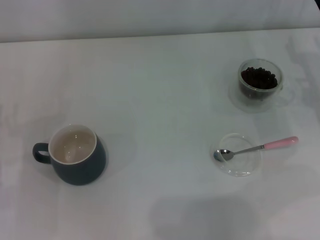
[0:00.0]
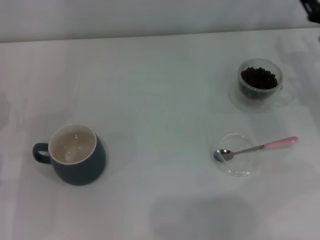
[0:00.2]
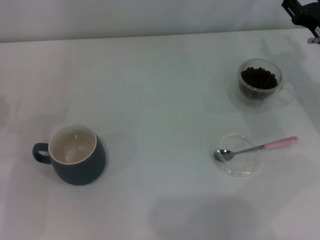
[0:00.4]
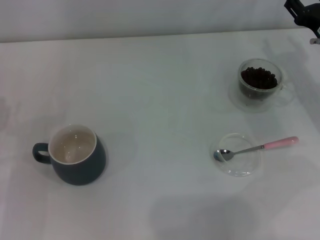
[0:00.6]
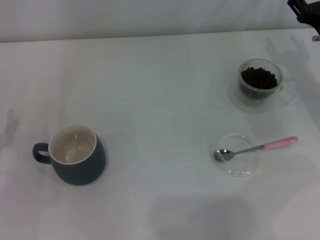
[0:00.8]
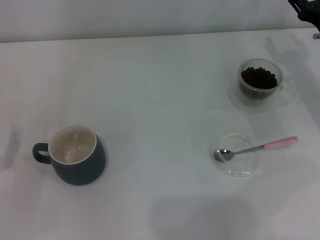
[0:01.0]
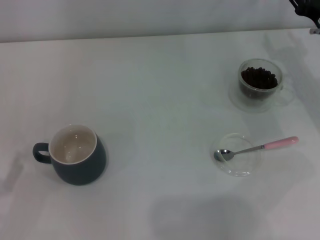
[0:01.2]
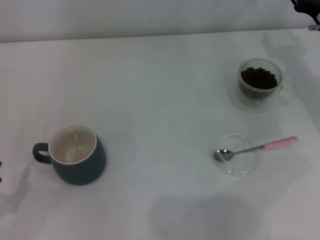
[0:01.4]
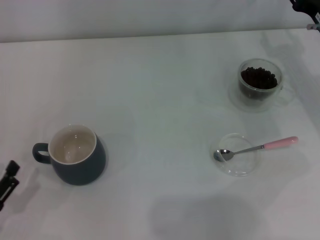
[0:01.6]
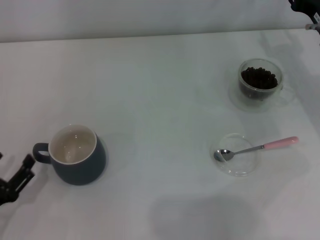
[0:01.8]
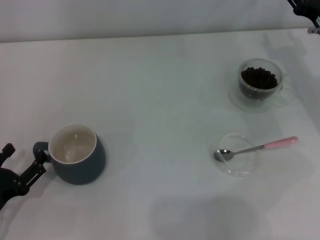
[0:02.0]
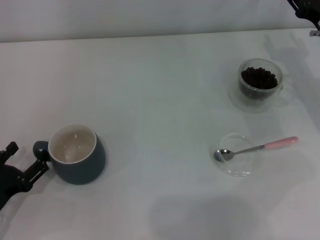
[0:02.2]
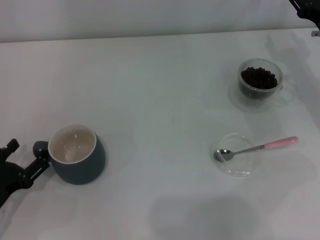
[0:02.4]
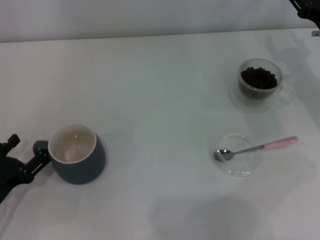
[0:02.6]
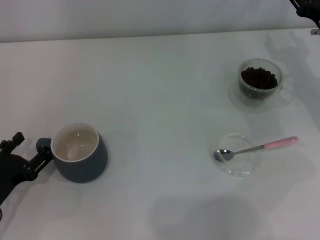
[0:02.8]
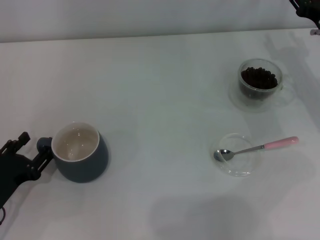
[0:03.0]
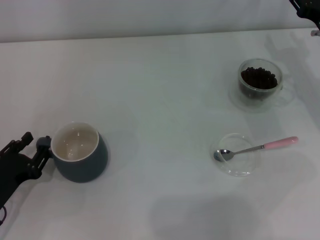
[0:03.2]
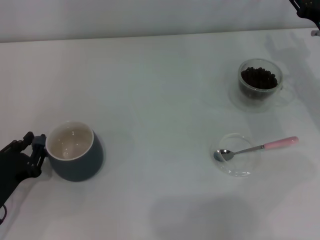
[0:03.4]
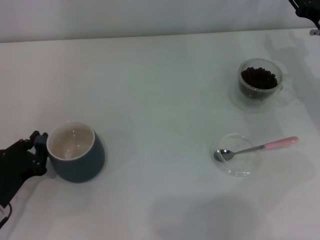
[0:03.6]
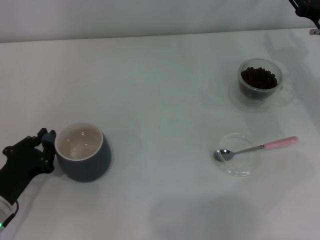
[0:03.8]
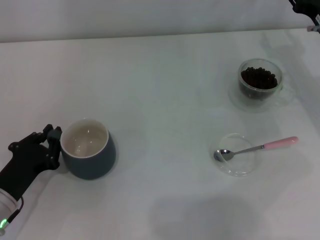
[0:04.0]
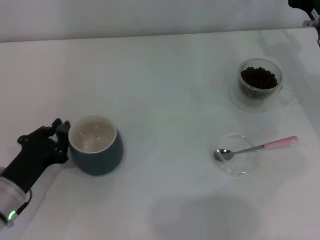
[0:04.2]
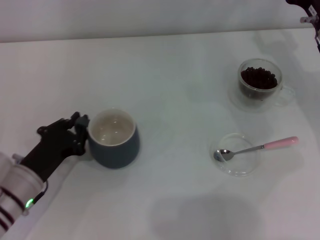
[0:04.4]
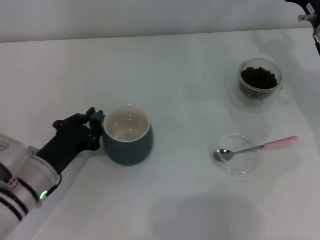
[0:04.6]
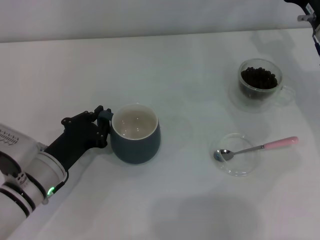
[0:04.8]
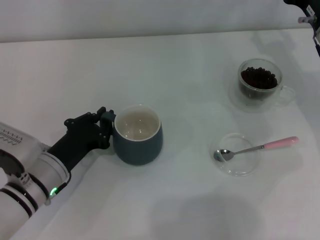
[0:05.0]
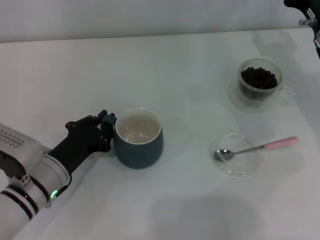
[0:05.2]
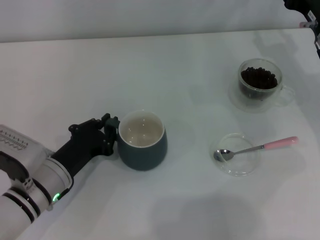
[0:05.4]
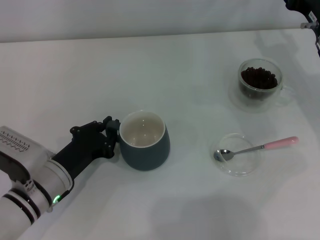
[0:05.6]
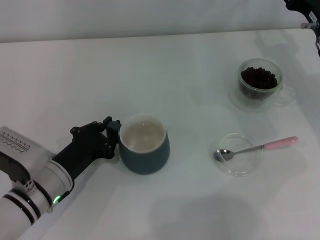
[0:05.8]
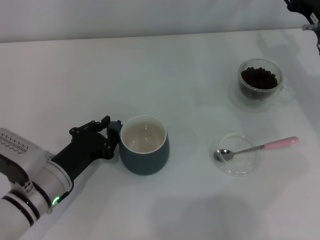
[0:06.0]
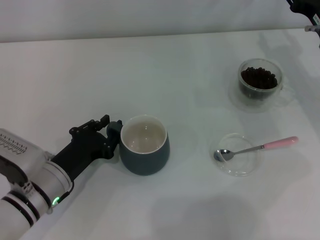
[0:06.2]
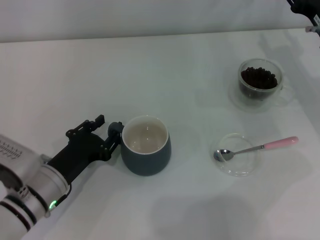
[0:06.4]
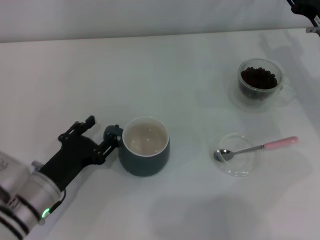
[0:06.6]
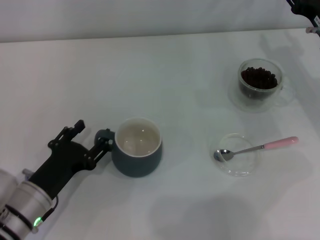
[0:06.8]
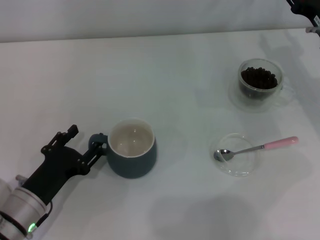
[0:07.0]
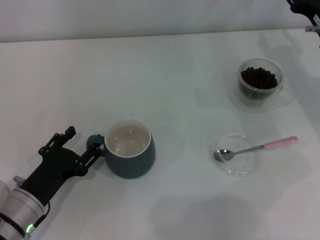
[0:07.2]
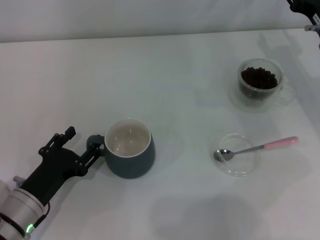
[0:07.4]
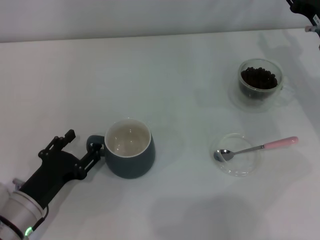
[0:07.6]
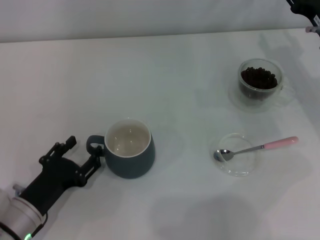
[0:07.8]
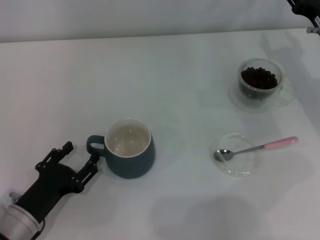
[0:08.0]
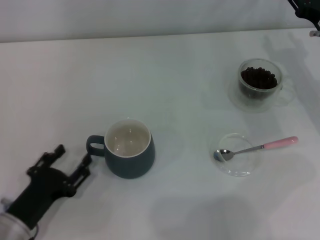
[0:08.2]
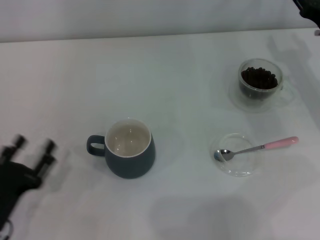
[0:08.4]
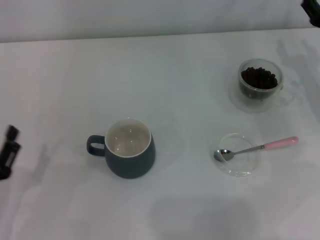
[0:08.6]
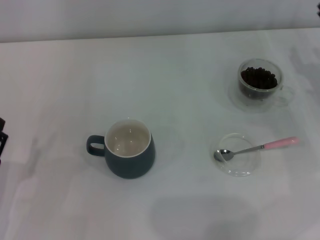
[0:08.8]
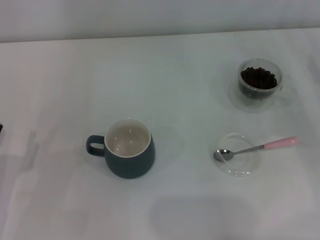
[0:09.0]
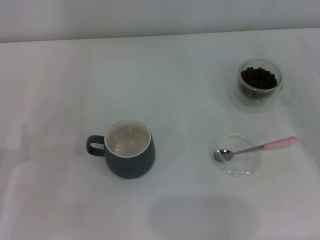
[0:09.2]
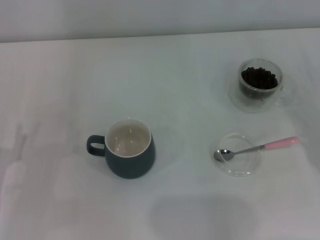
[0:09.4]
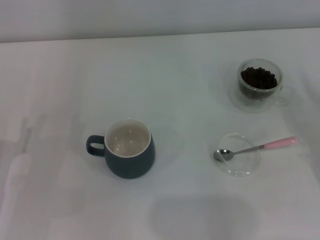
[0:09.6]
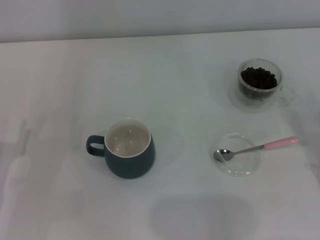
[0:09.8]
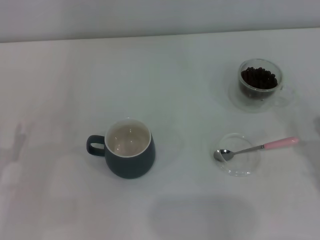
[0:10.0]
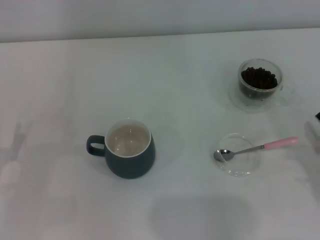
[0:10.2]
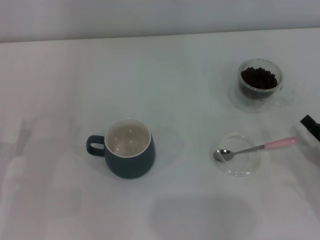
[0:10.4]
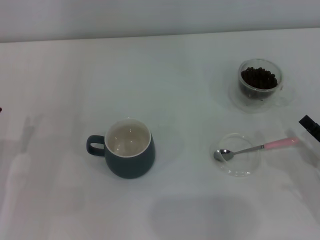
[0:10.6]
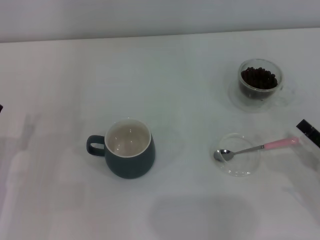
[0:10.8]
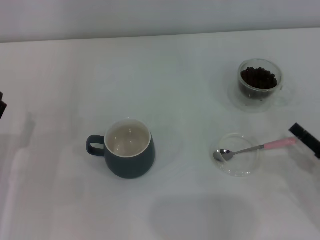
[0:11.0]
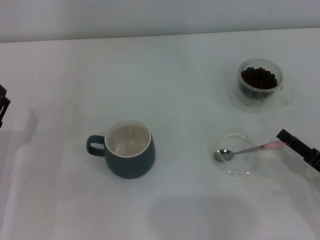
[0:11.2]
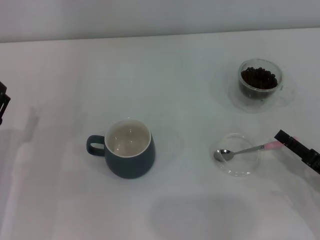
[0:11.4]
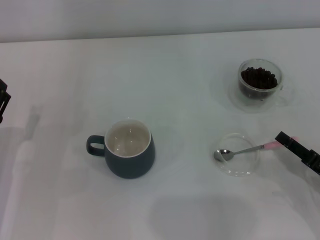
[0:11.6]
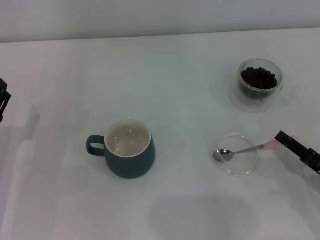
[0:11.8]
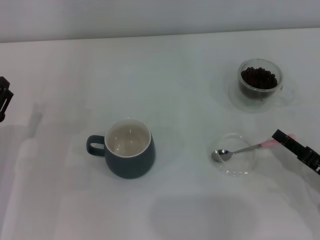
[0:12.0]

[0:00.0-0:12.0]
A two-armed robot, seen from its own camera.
Task of the whole recording: Use a pink spoon to take out the coffee beans from the glass and pour them into the gray cup.
Step, 0:00.0 to 0:08.0: Move the cup to the center of view with the left gripper.
0:00.0 to 0:01.6: The left gripper goes some 10 cm backward.
0:01.6 to 0:03.0: The left gripper goes some 5 cm forward.
0:03.0 to 0:04.4: The left gripper goes about 5 cm to the right, and closes.
0:04.4 to 0:06.0: The grippers move only a little.
0:06.0 to 0:07.6: The left gripper moves roughly 5 cm, and opens its fingers.
0:07.6 to 0:09.0: The right gripper heads backward and to the right, covering some 10 cm; the left gripper travels to the left by some 5 cm.
0:09.0 to 0:10.4: The right gripper goes approximately 15 cm backward and downward.
0:10.4 to 0:12.0: The right gripper closes.

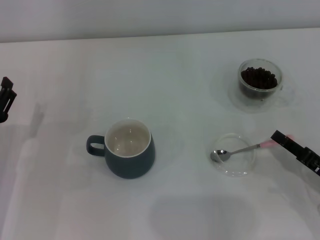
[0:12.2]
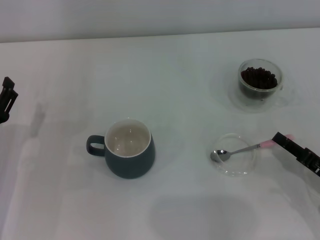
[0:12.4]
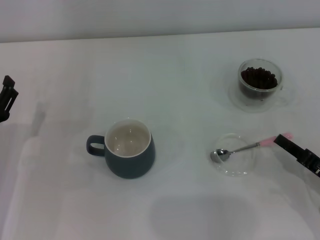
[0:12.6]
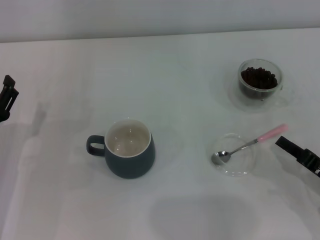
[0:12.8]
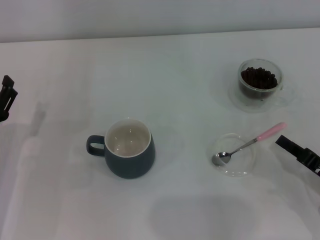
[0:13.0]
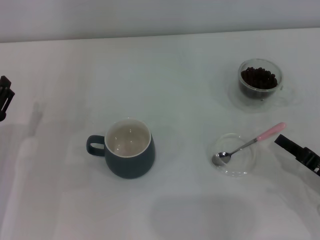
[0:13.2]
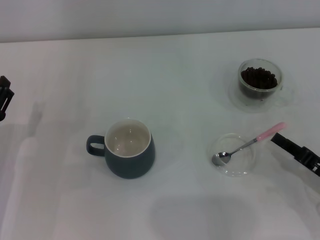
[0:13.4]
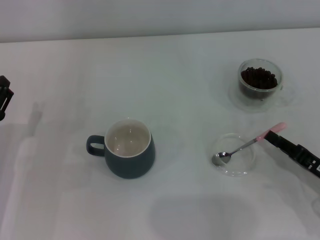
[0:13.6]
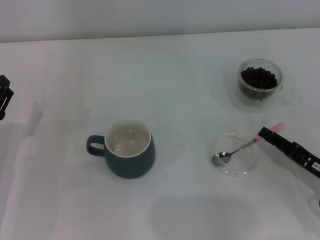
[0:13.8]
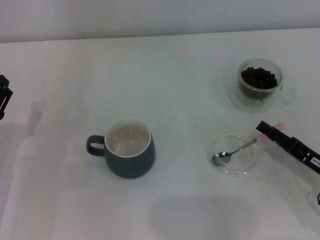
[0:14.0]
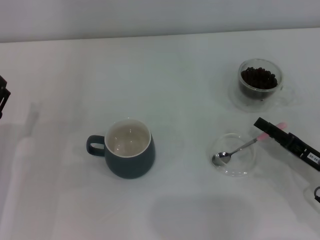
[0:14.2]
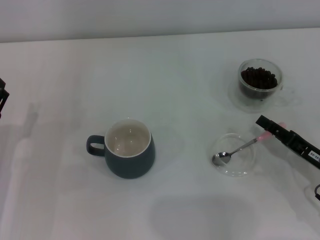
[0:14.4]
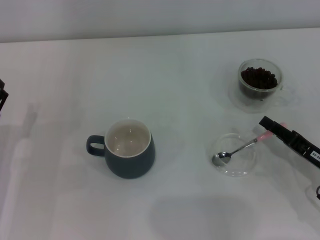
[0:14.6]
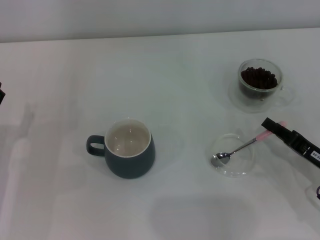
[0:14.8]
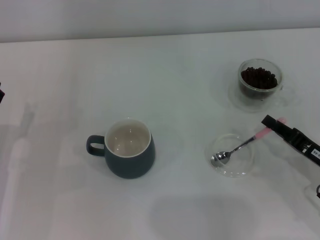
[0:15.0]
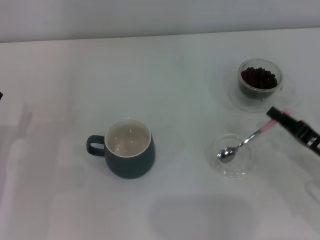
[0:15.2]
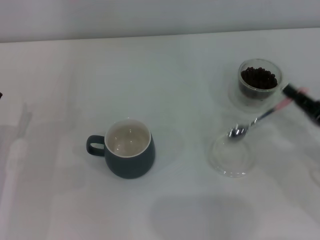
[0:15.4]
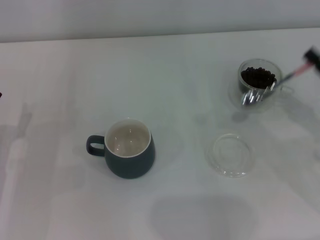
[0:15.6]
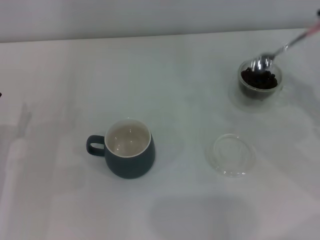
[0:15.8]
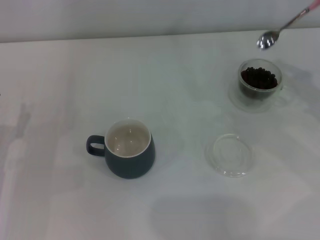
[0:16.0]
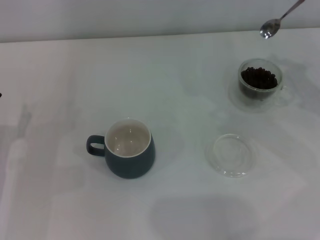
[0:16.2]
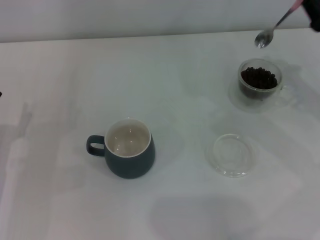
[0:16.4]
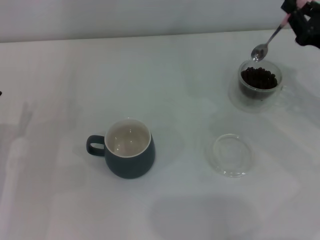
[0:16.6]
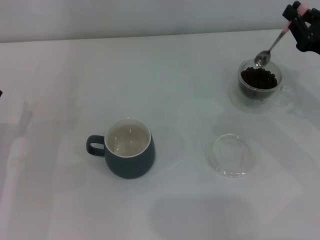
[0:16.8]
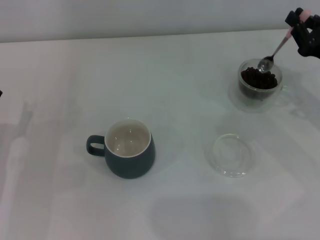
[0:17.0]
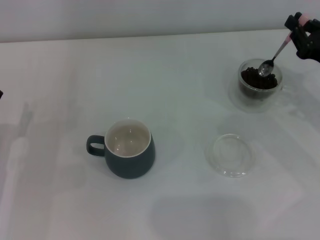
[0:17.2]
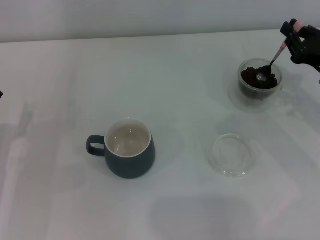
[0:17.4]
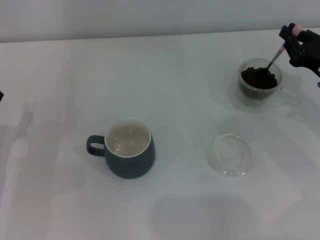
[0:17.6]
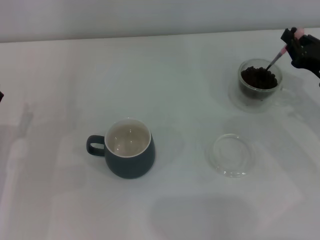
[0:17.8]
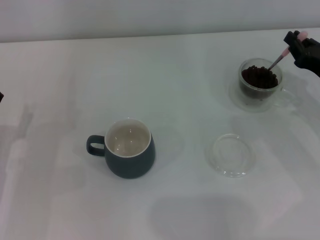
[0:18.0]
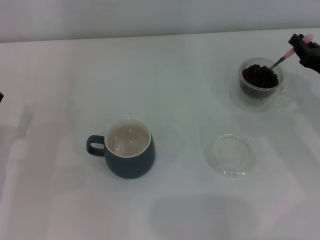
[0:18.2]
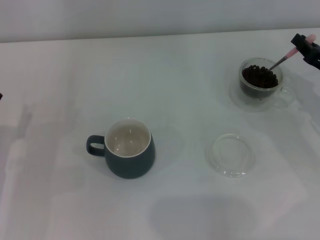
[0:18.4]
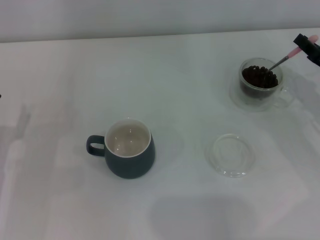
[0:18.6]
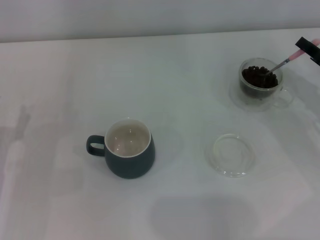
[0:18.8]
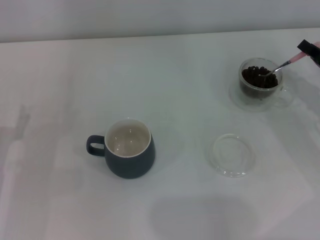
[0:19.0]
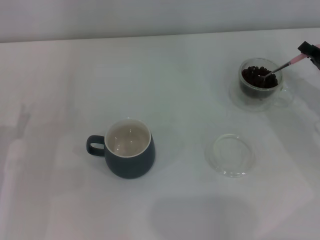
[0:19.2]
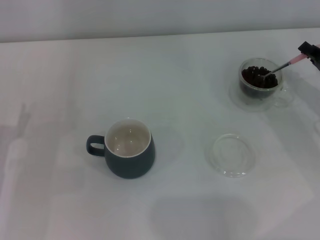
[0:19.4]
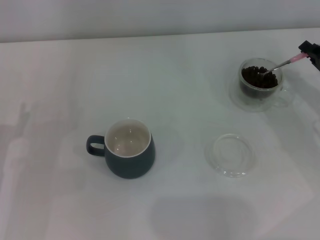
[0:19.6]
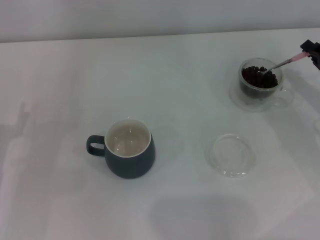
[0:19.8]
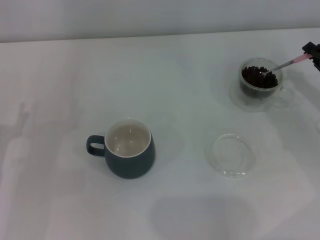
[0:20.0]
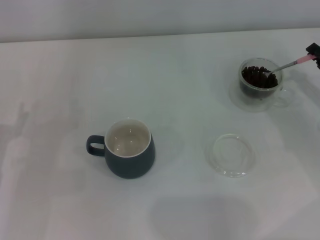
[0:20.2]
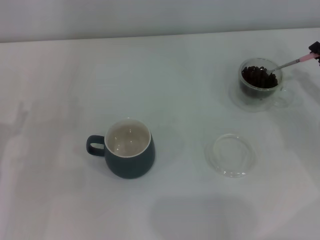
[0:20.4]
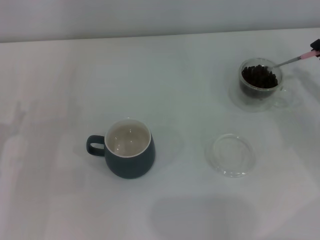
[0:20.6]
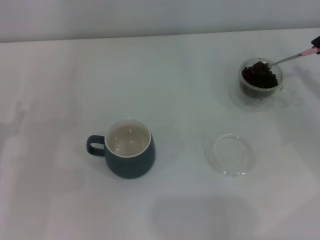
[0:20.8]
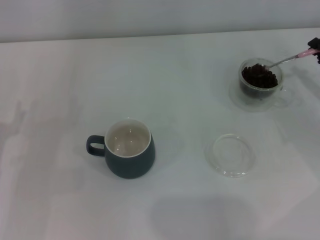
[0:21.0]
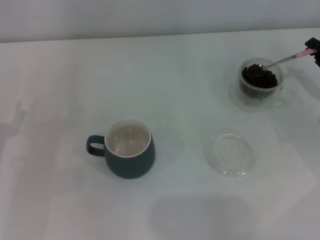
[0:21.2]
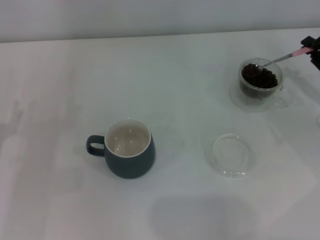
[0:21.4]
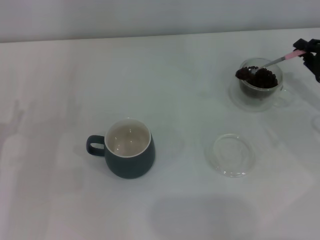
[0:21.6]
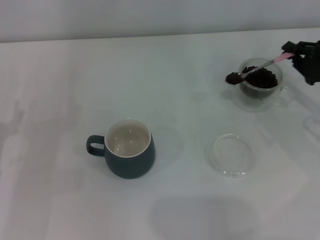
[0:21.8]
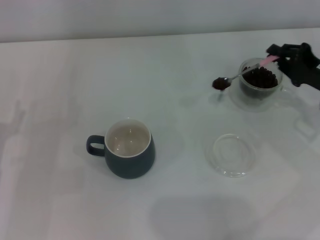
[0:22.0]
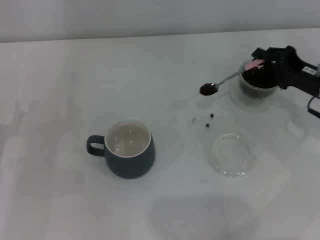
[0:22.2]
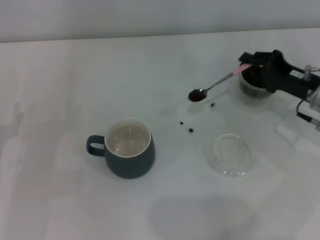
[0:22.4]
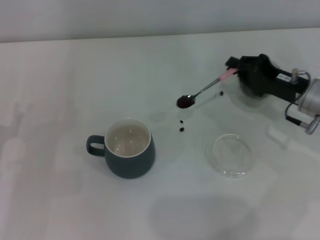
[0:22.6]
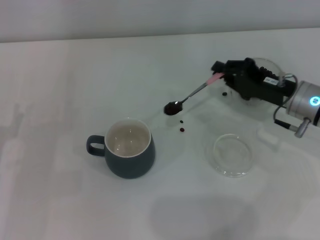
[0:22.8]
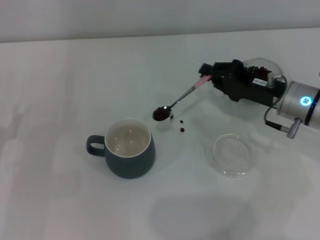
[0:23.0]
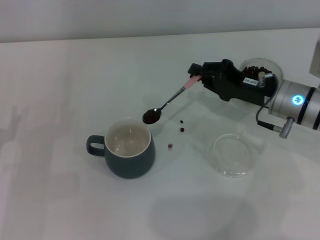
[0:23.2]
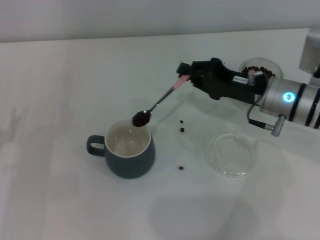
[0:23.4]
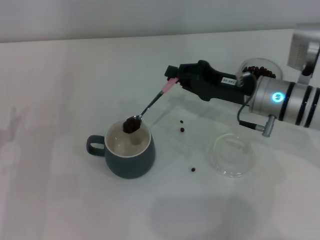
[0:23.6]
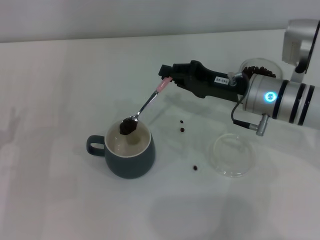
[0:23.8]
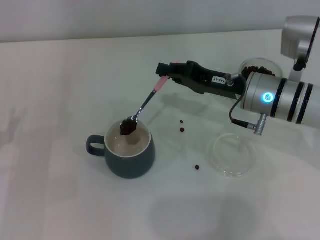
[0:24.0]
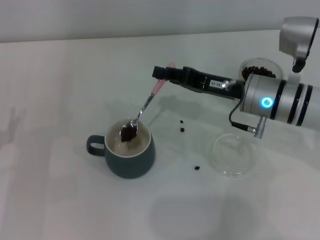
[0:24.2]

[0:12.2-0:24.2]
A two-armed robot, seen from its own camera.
Task of the whole recording: Use a pink spoon to take out the coffee beans from the glass and pour them into the gray cup.
Step, 0:12.2 to 0:15.2: Pick up the spoon with the right gripper.
0:12.2 to 0:13.8: The right gripper closes and opens again.
0:13.8 to 0:15.2: The right gripper opens, then closes again.
0:15.2 to 0:16.6: The right gripper moves forward and upward, some 15 cm.
0:21.2 to 0:22.6: The right gripper is displaced to the left by approximately 10 cm.
0:22.6 to 0:24.2: The right gripper heads to the left, covering approximately 10 cm.
